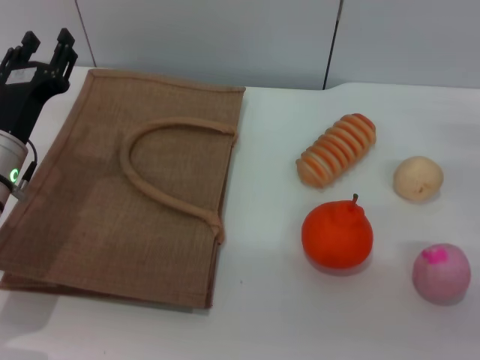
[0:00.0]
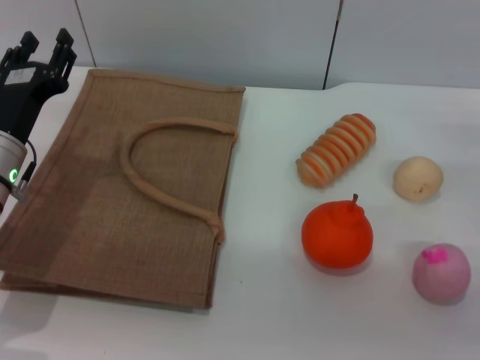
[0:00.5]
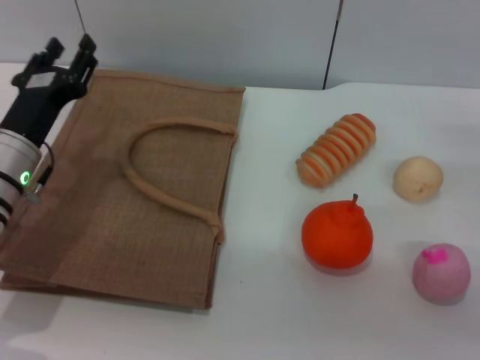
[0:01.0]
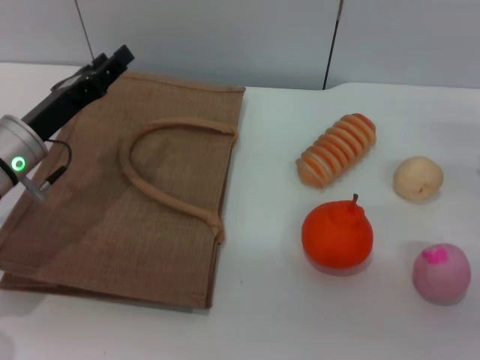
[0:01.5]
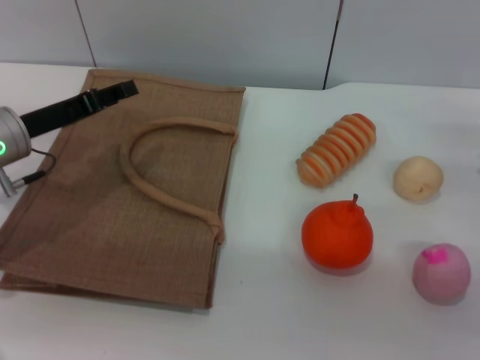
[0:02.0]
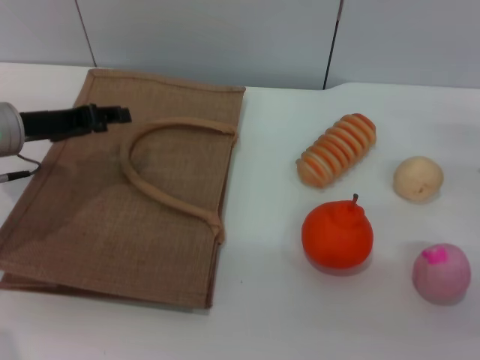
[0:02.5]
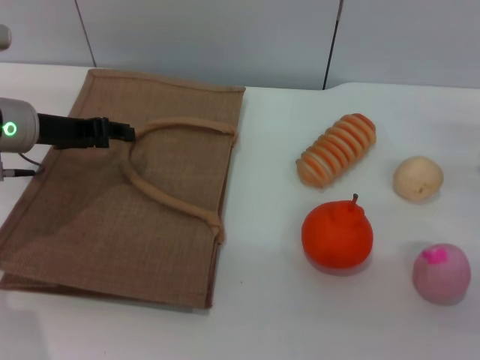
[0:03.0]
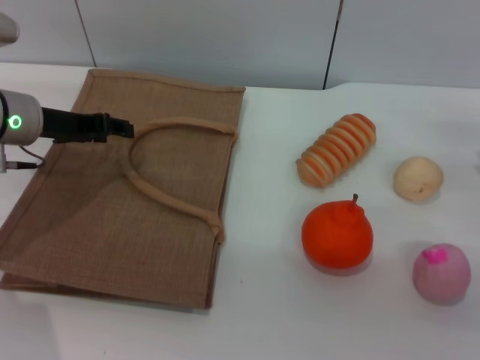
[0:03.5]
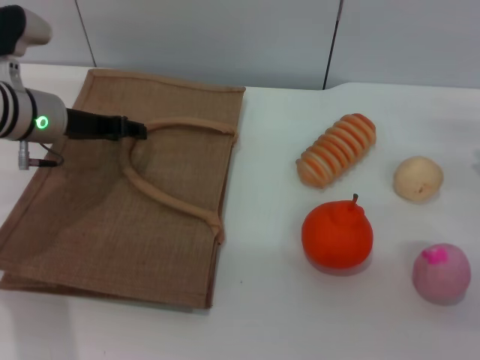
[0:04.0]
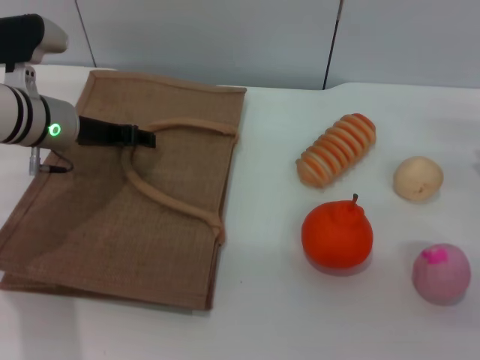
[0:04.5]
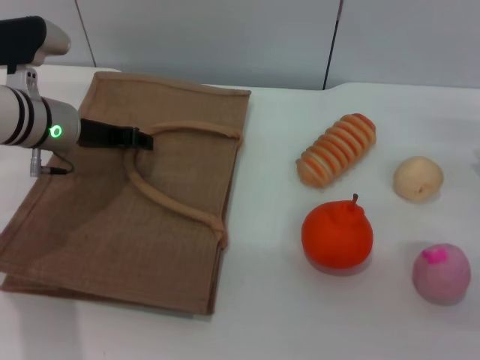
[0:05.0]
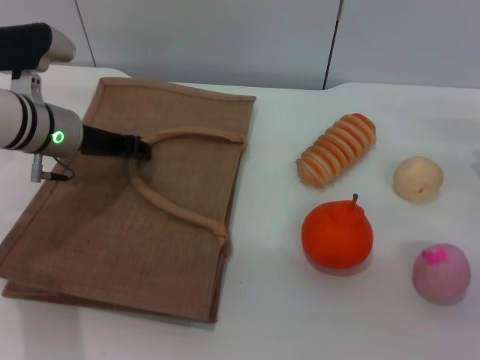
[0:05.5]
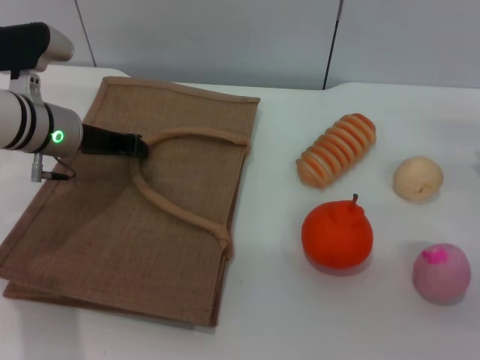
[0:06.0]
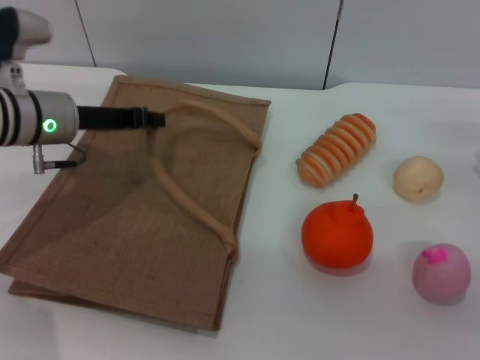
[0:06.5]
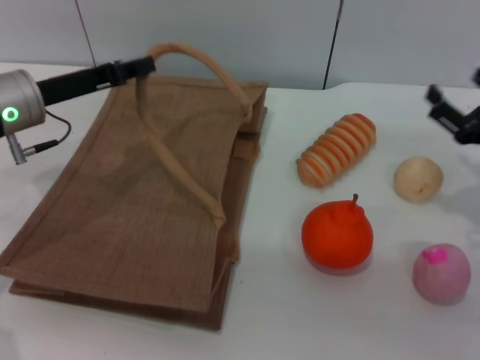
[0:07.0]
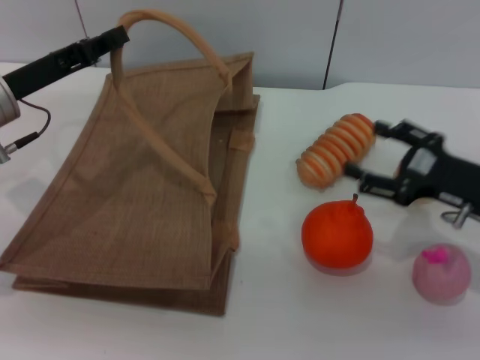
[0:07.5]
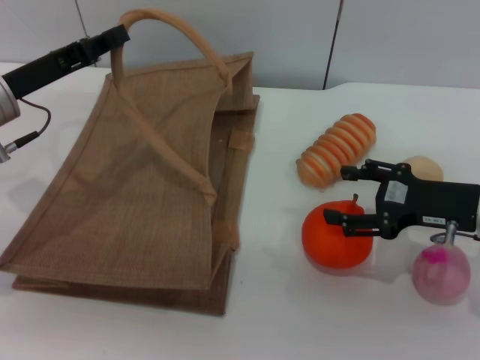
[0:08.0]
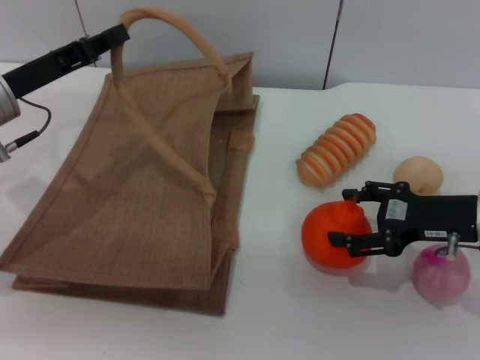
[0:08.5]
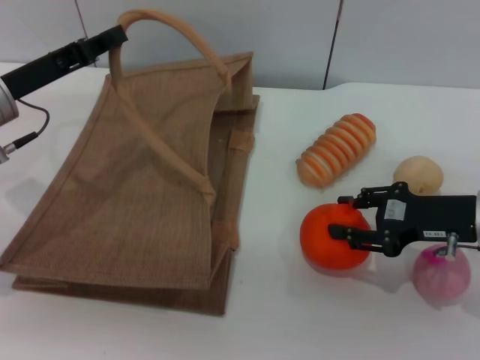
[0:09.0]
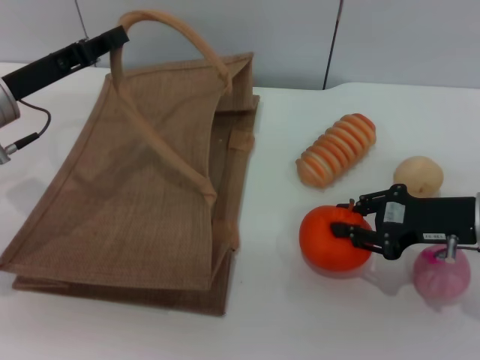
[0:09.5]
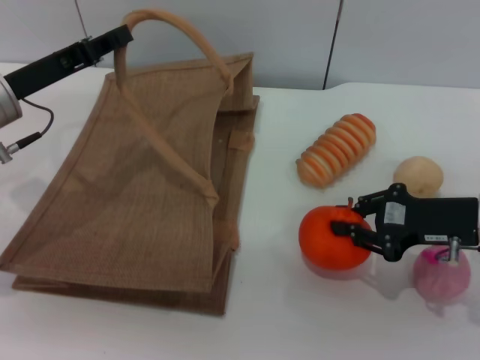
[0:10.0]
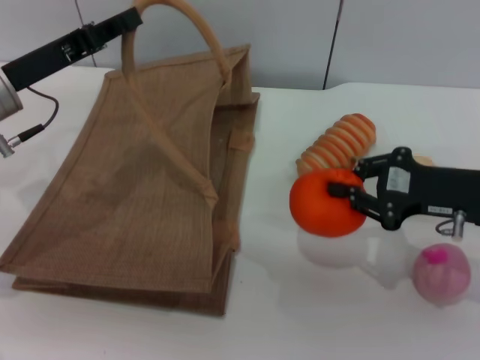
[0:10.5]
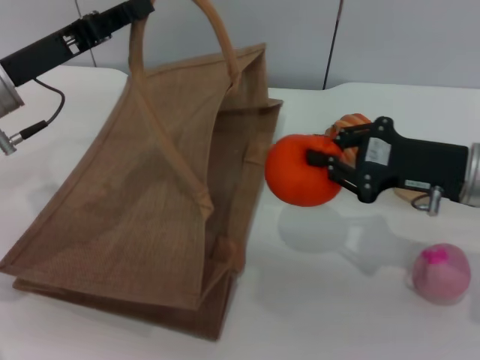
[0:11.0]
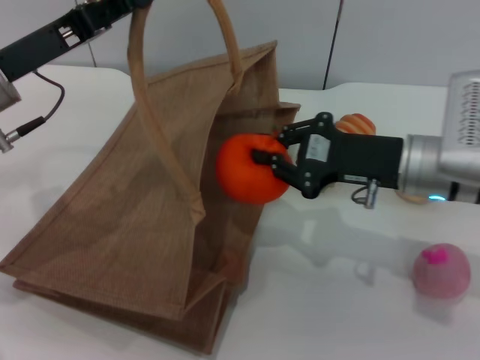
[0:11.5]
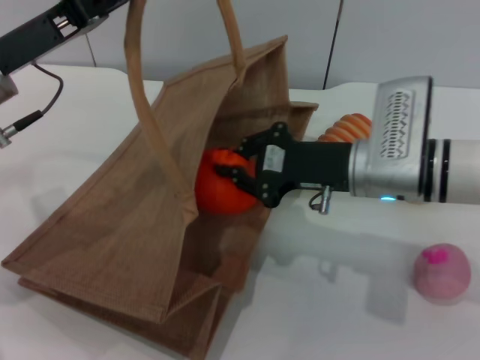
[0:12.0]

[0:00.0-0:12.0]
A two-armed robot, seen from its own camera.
Task of the whole recording: pick up the orange from the table and place it in the brown handbag.
Step, 0:00.0 to 0:06.5: Lift the woven bag with the left gripper to open it.
Step, 0:07.0 to 0:10.5: Pick up the orange with the right gripper.
0:02.0 to 0:04.0: The left gripper heads forward, covering some 5 cm.
0:04.0 to 0:06.0: The left gripper closes up.
0:06.0 to 0:08.0: The right gripper moves to the left, approximately 5 cm. The left gripper ends up about 5 cm from where it was.
0:08.0 to 0:10.0: The right gripper closes.
0:10.0 to 0:12.0: The right gripper travels to the left by roughly 15 cm.

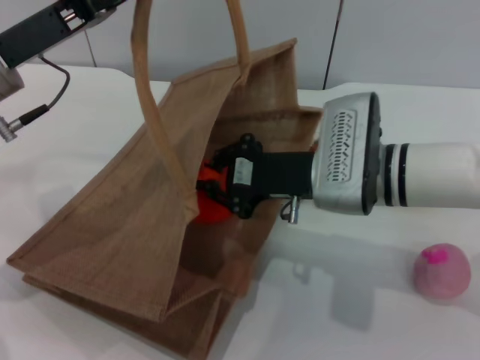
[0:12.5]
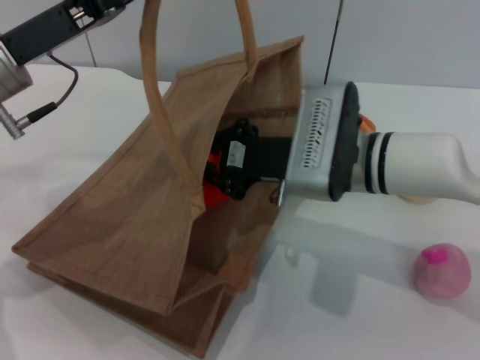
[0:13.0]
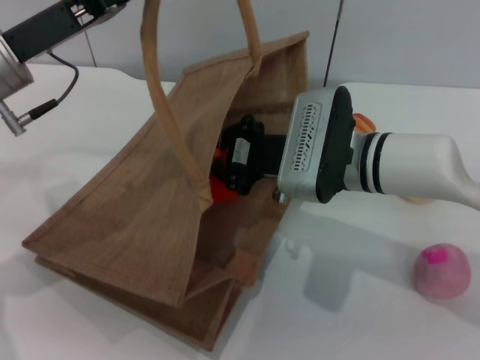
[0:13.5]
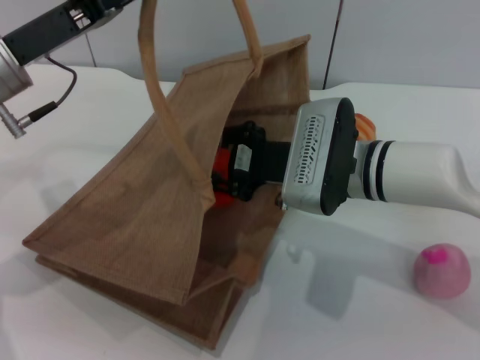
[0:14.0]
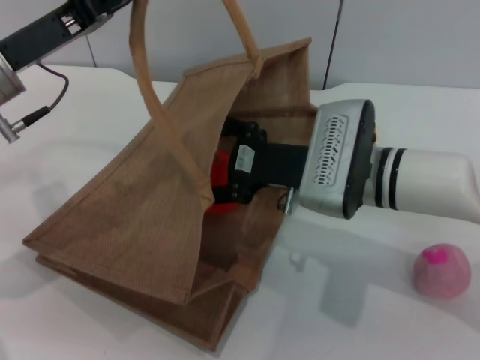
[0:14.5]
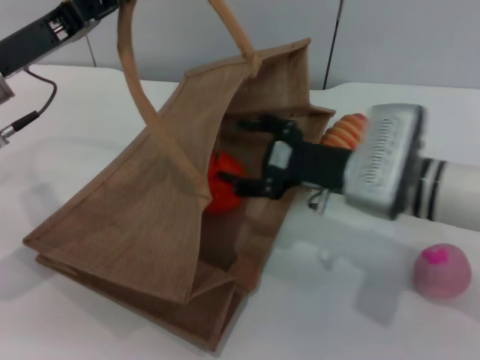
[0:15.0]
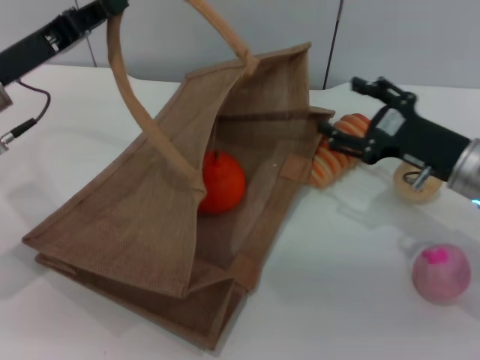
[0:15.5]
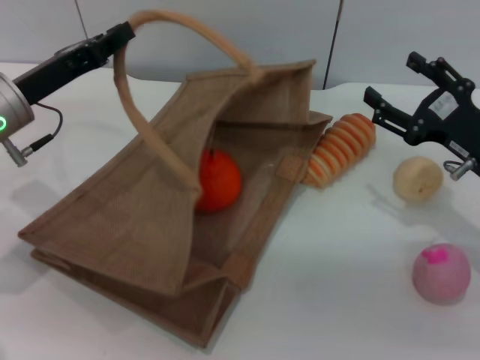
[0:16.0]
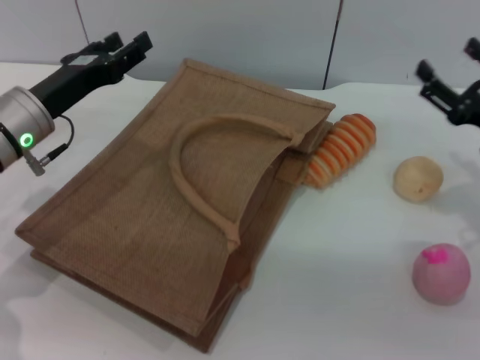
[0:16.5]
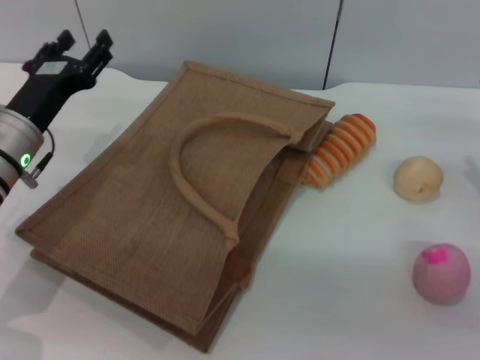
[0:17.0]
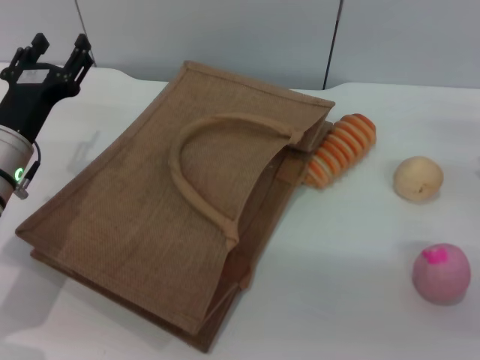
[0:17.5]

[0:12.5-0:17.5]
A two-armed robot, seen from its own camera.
Task of the whole recording: pick up the orange from the table and place it in the brown handbag.
Step, 0:12.5 to 0:15.5: Place the orange into the woven bag with the right gripper.
Step, 0:16.0 to 0:16.5: Lower the woven bag with the left gripper to close it.
0:12.5 to 0:15.0: The right gripper opens its fingers.
0:15.0 to 0:17.5: The left gripper shifts some 10 cm downward, and opens, while the right gripper moves to the right, approximately 20 cm.
